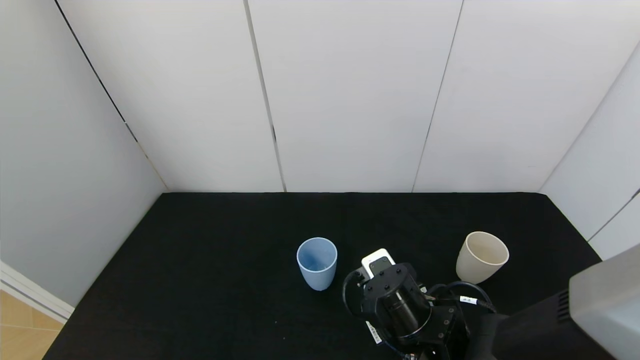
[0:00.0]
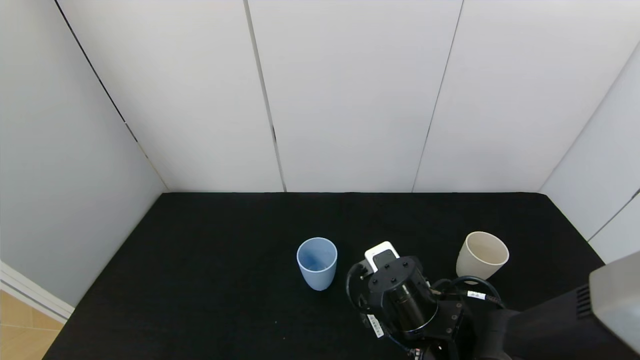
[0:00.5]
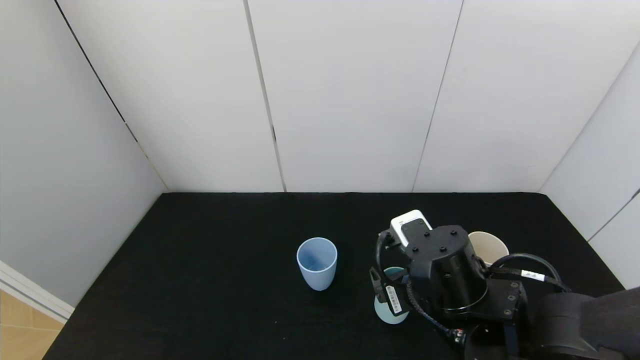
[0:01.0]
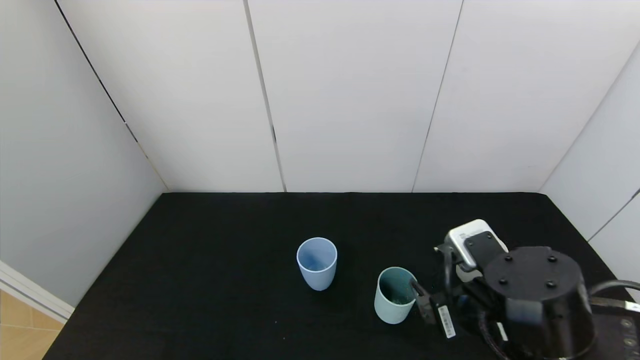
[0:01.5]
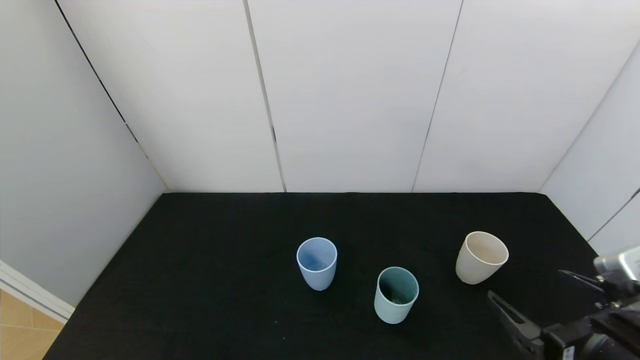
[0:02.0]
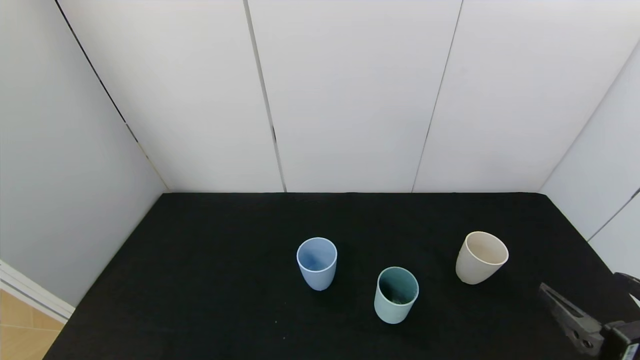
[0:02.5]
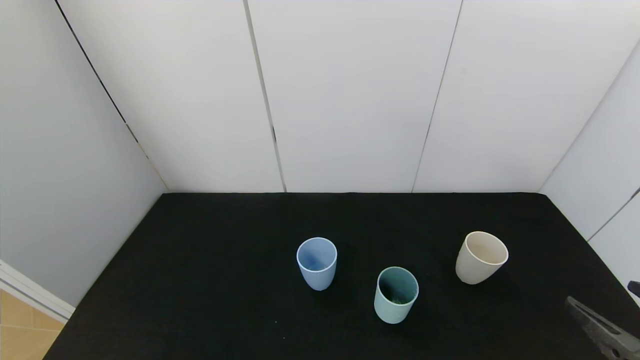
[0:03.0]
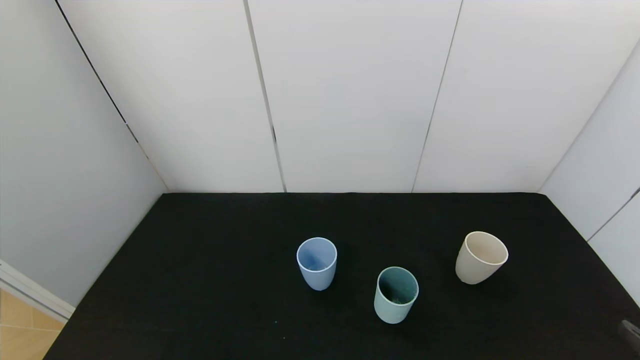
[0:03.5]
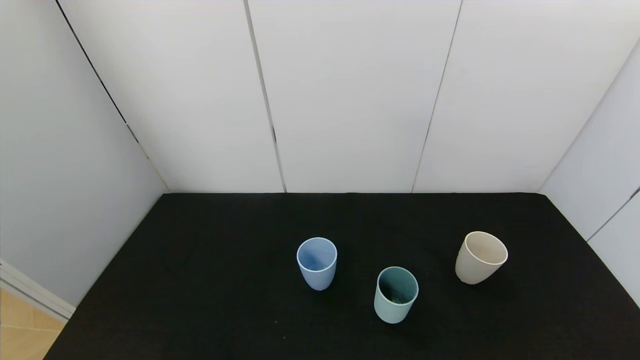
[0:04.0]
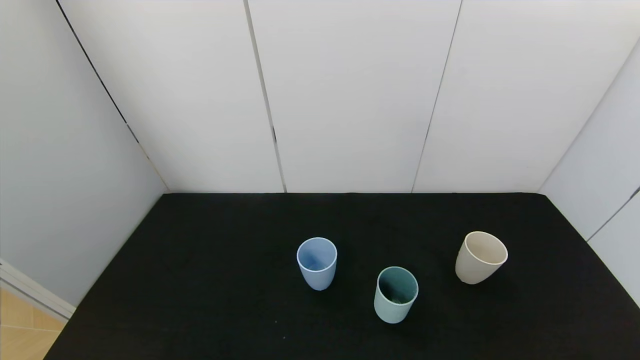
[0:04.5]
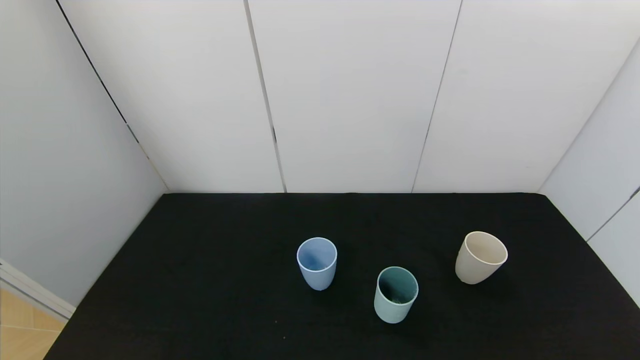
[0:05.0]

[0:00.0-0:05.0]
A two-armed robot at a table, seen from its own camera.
Task of the whole recording: use the gripper to pour the water into the other two cups on black table.
0:00.0 to 0:02.5: The right gripper moves to the right, backward and upward, some 25 cm, and opens.
0:02.5 to 0:05.0: The right gripper goes some 15 cm backward, downward and to the right.
